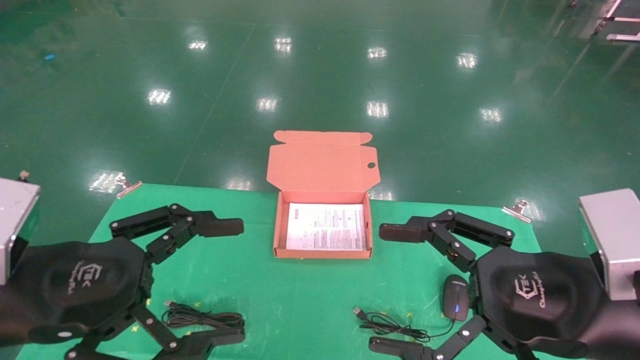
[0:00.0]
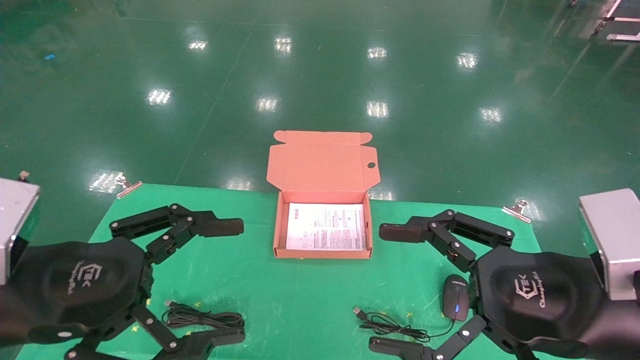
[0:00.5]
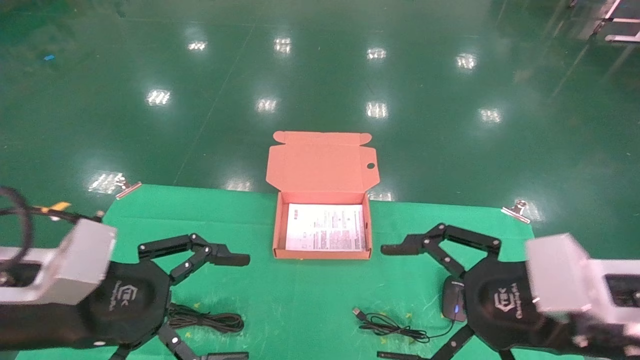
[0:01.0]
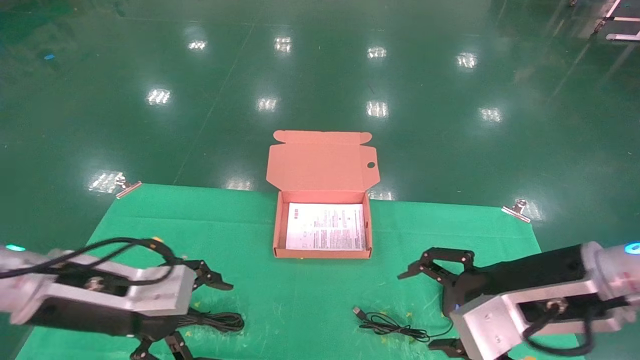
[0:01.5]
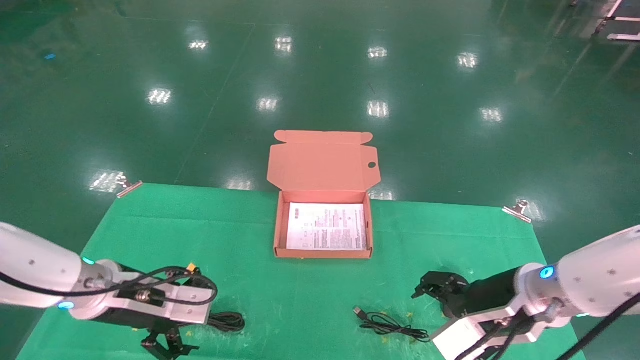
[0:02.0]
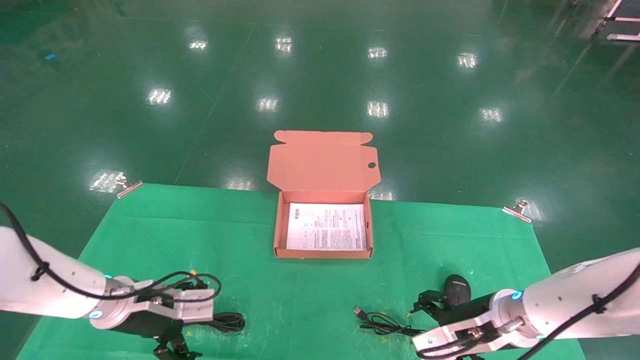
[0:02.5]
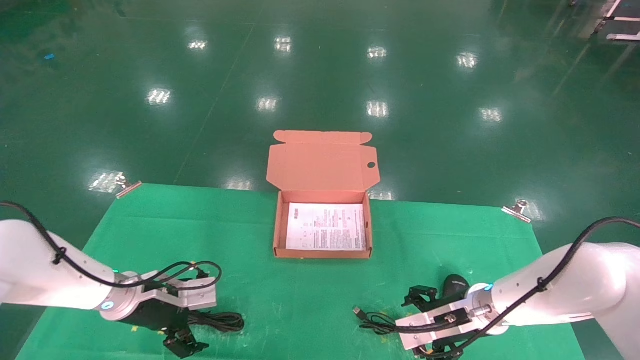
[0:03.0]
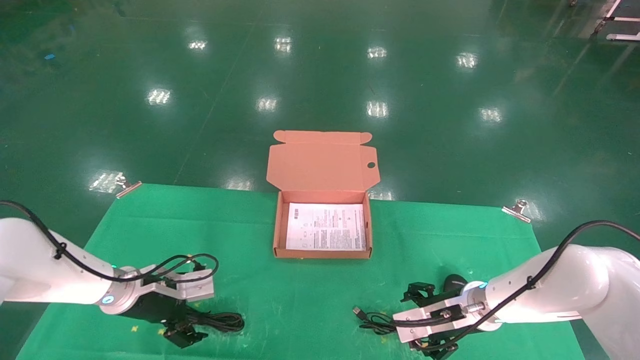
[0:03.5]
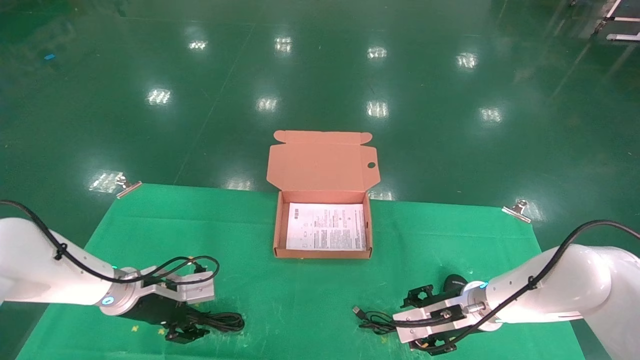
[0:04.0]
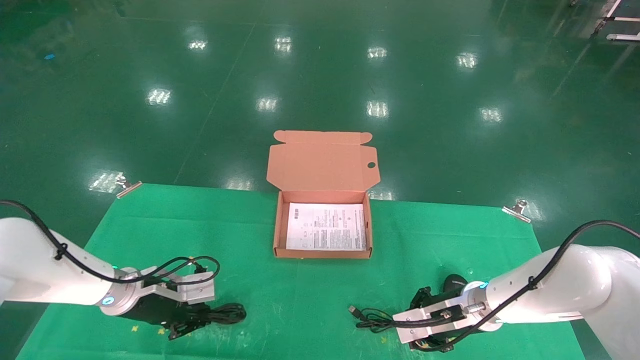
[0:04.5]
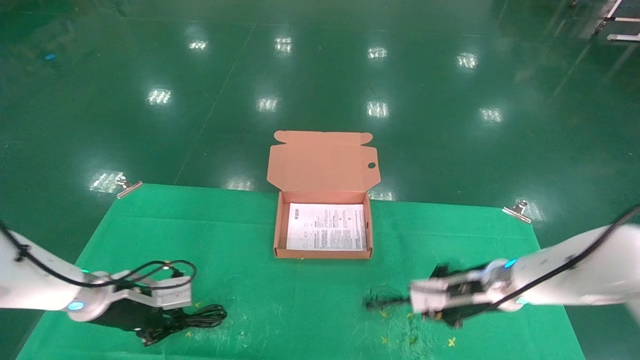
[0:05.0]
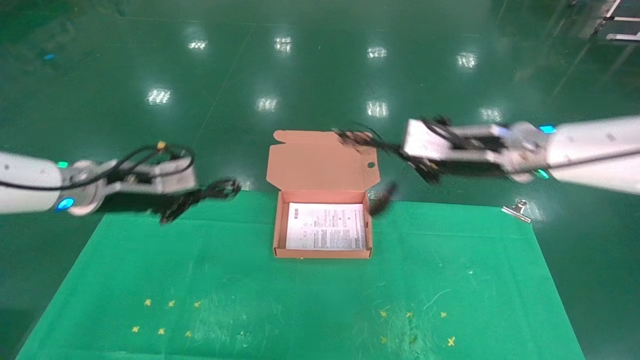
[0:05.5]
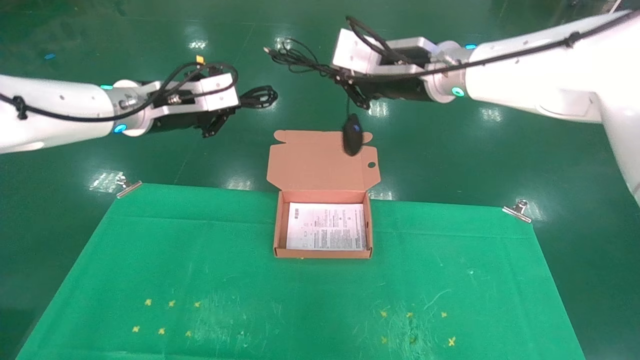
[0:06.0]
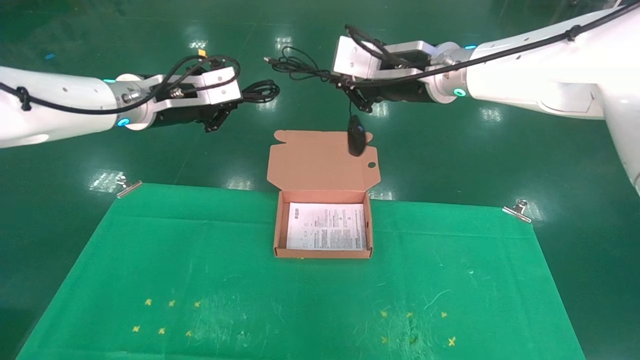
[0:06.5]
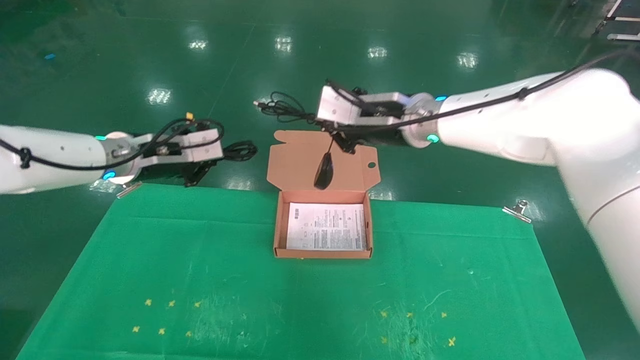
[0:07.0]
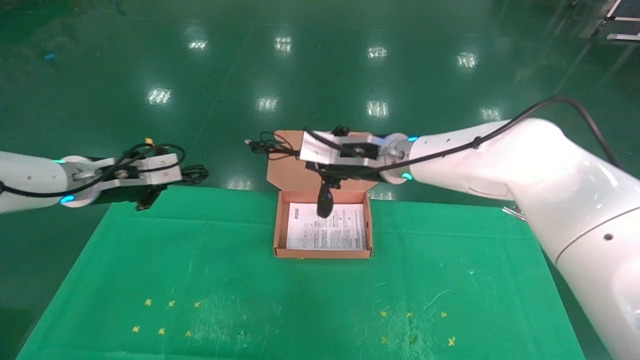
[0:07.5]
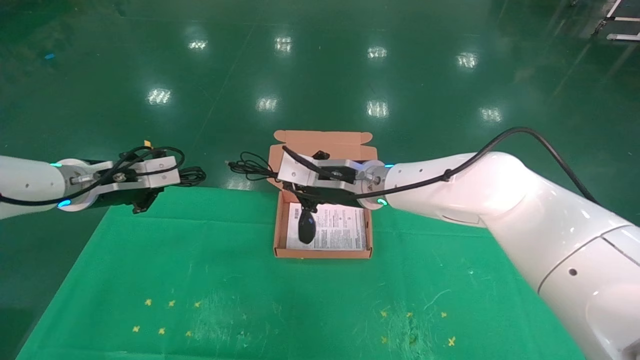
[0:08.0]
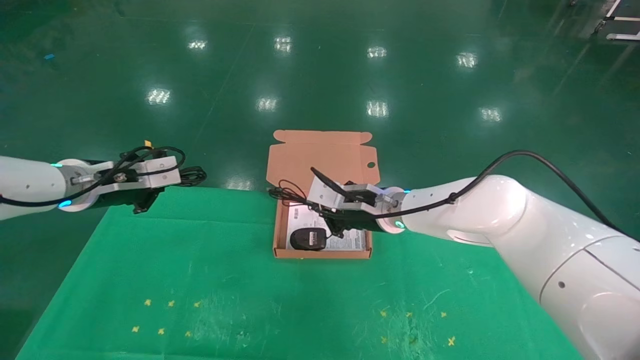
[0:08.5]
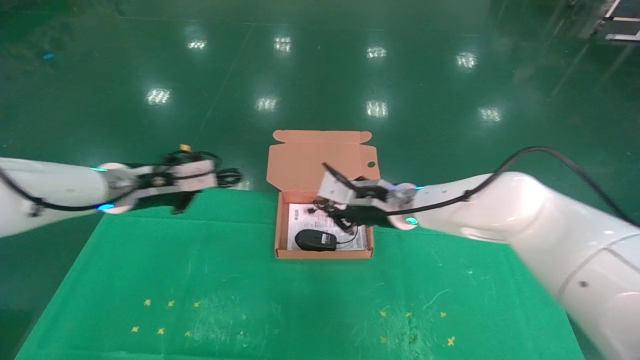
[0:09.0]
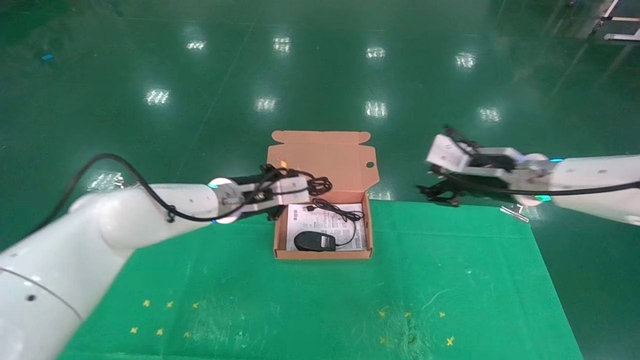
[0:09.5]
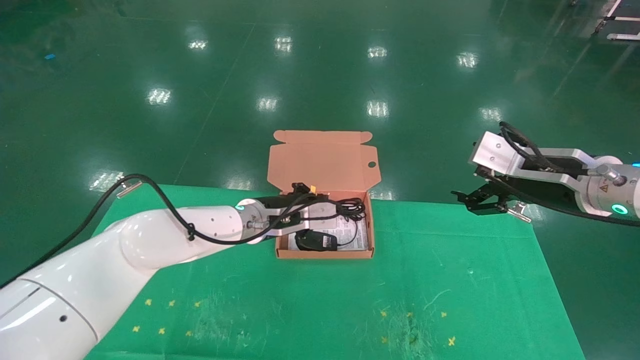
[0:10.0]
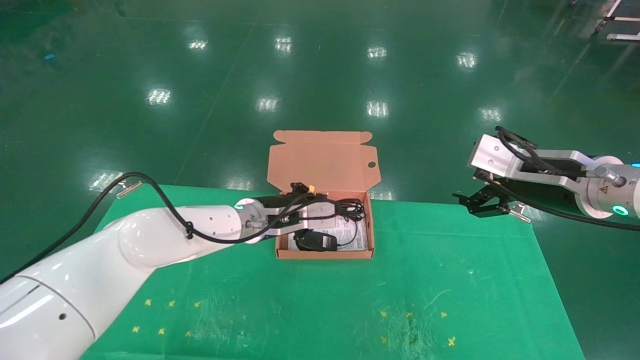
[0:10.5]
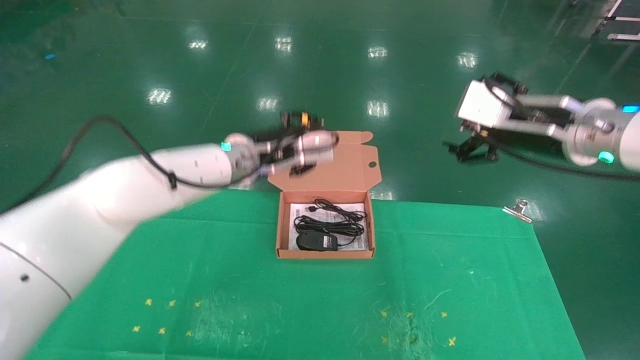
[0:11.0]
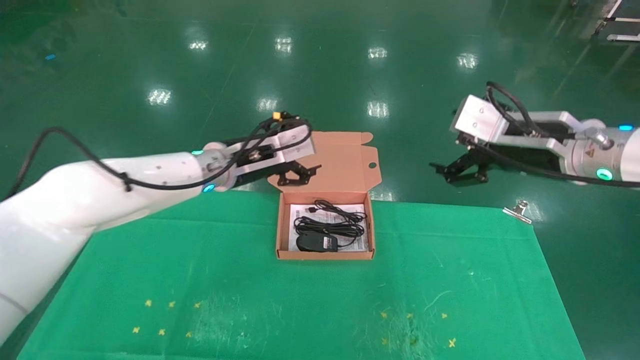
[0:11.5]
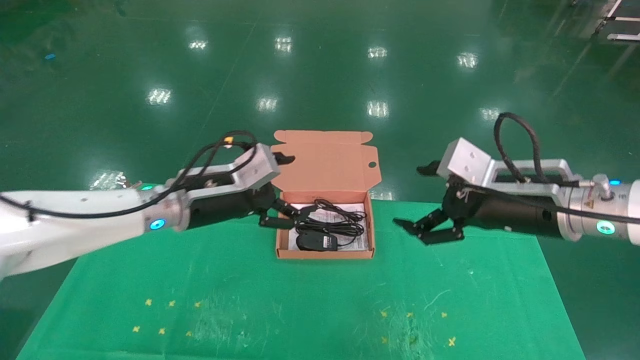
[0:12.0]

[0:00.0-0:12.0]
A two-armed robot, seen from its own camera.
Task of the whole recording: grasp data cable left put into box grasp mouse right put into box.
Step, 0:01.0 to 0:05.0: Grab and pick up both the mouse and power cord from the accessory packaging area at the same time.
Step, 0:05.5 to 0:11.0: Place the mouse and power cord into the box.
0:00.0 to 0:02.0: The grippers both shift forward and downward by roughly 20 cm.
0:02.0 to 0:04.0: Both grippers move forward and downward, some 10 cm. The left gripper closes.
0:04.0 to 0:06.0: Both grippers travel together upward, some 30 cm. The left gripper closes. The right gripper closes.
0:06.0 to 0:08.0: The two grippers go roughly 15 cm downward and to the left.
0:08.0 to 0:10.0: Both grippers move to the right, approximately 25 cm. The right gripper opens.
0:10.0 to 0:12.0: The right gripper ends up about 5 cm from where it was. The left gripper goes roughly 10 cm to the left, backward and upward, and opens up.
